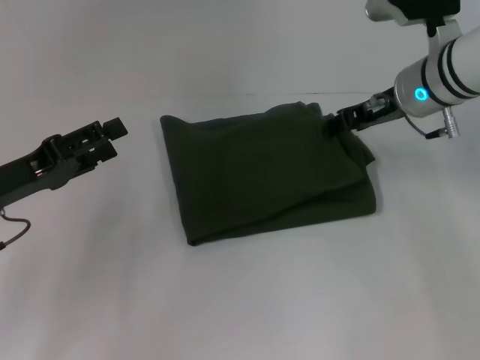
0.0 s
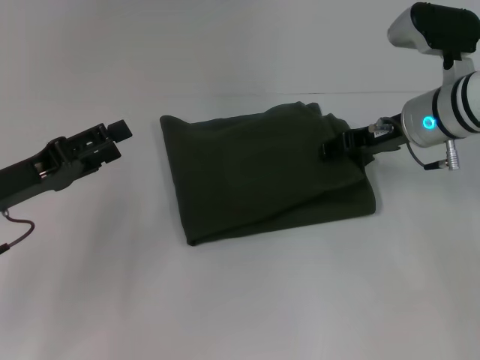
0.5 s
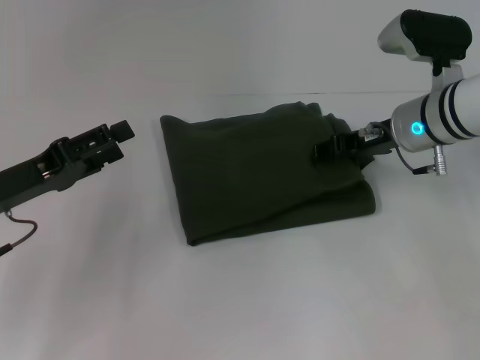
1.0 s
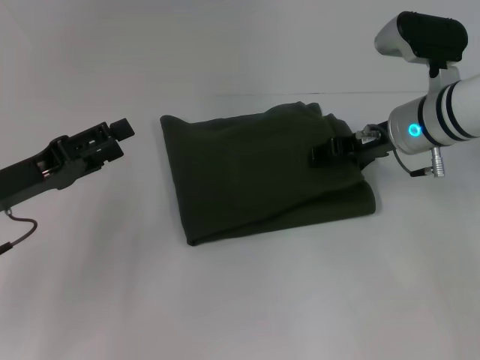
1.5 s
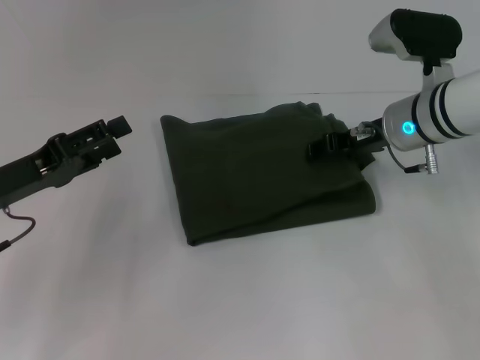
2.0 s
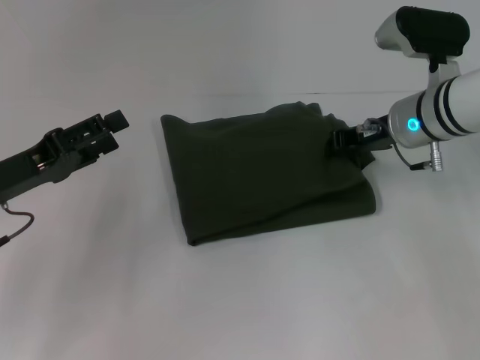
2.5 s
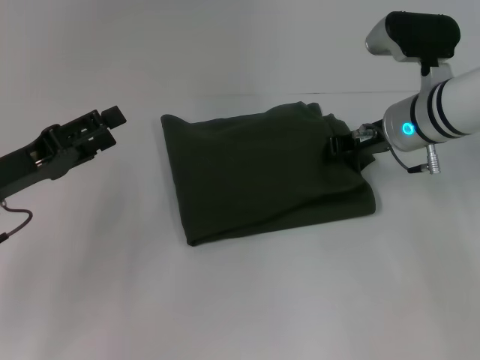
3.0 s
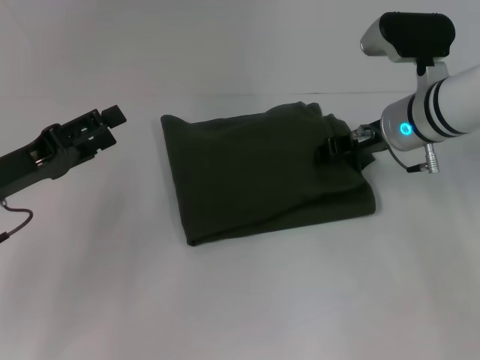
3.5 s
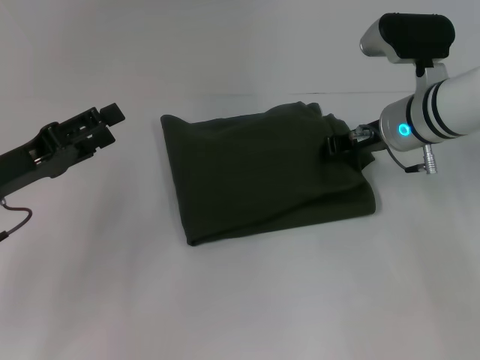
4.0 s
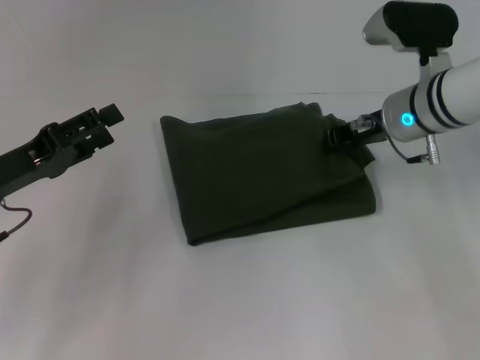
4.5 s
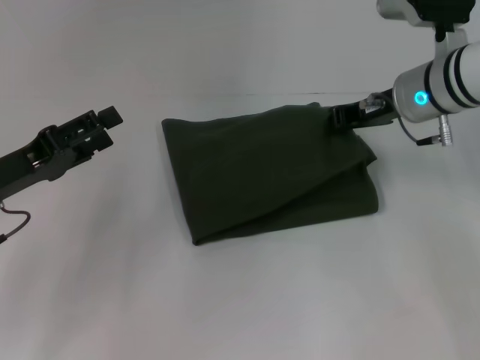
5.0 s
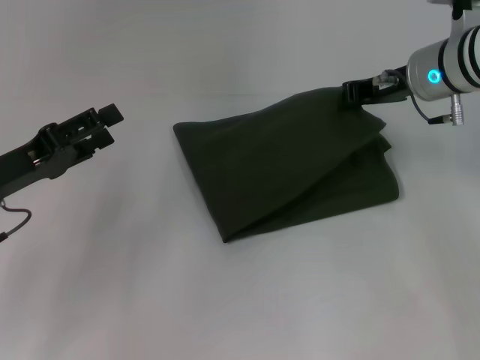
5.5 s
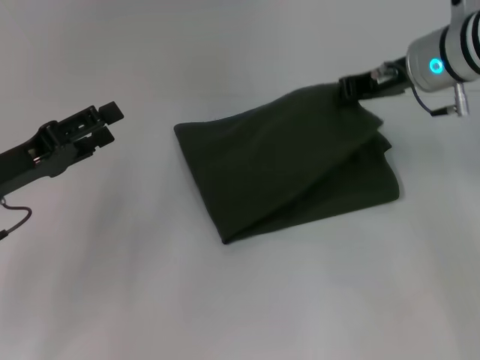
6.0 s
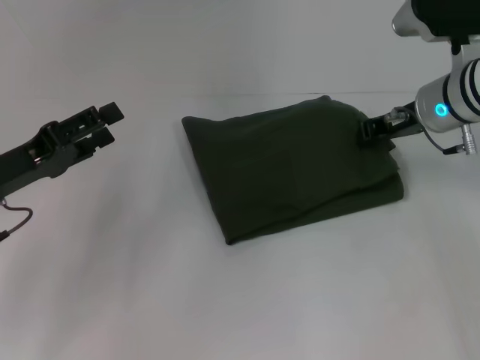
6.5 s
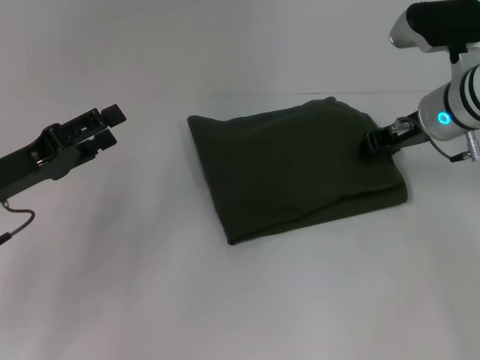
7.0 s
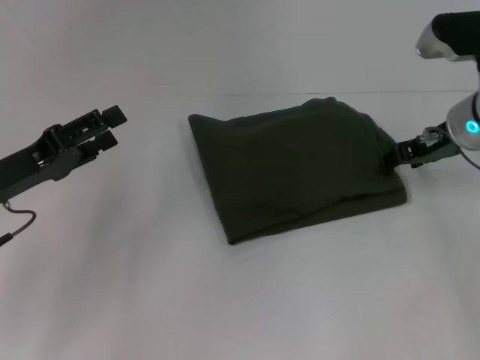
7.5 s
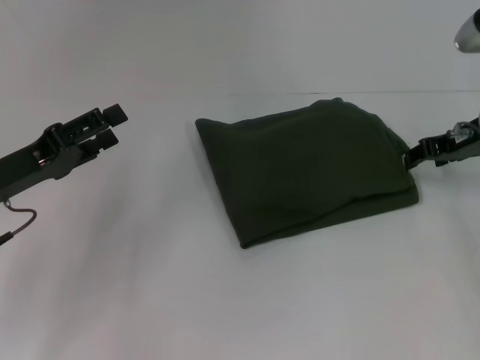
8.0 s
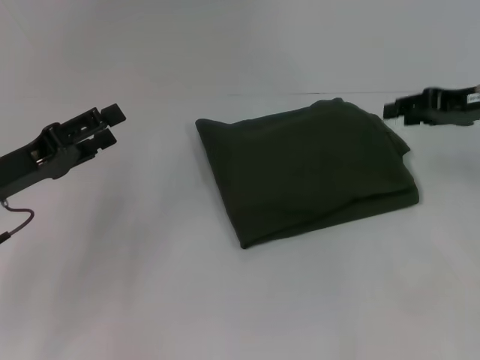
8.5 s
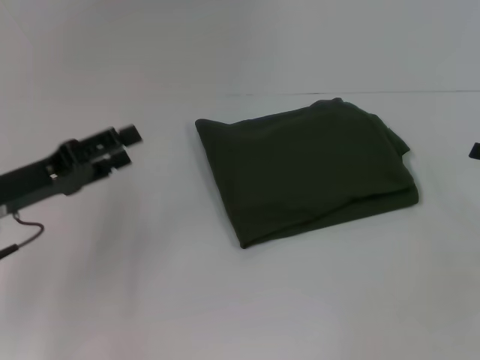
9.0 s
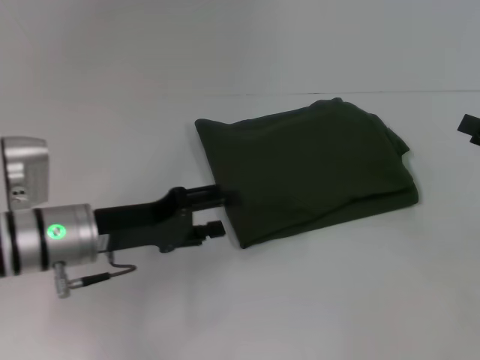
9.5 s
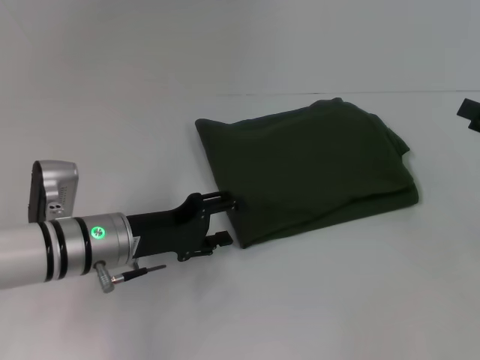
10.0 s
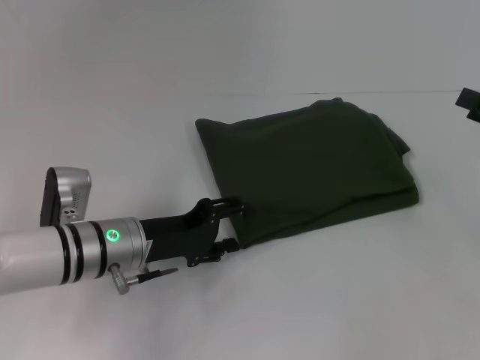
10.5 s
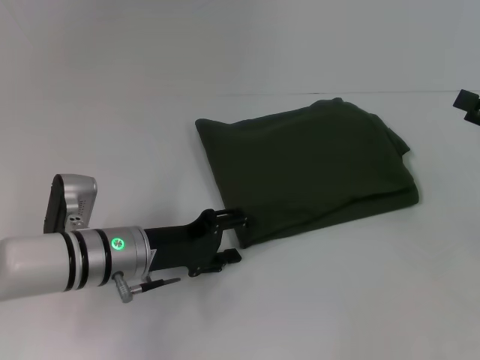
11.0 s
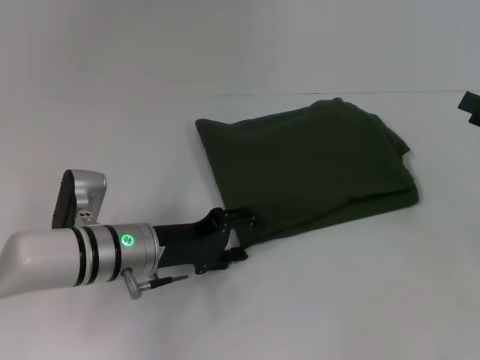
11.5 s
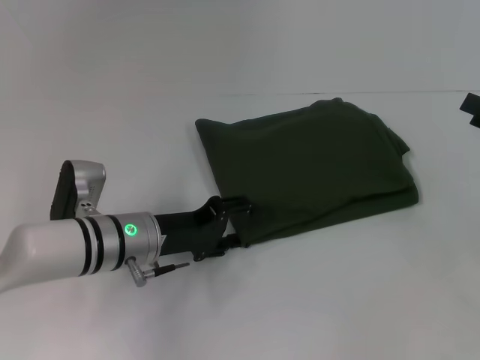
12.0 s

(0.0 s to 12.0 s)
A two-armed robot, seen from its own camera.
0.0 s - 2.0 s: There are only small adjustments of the grippers.
2.0 s - 4.0 s: The right gripper closes its fingers.
4.0 s - 6.0 s: The right gripper is displaced upward by roughly 5 cm.
6.0 s - 8.0 s: The right gripper is displaced to the right by some 10 cm, and opens.
8.0 s - 10.0 s: The right gripper goes some 15 cm backward and to the right, and opens up. The left gripper goes roughly 10 cm to the right and downward.
10.0 s - 12.0 s: There are only small adjustments of the grippers.

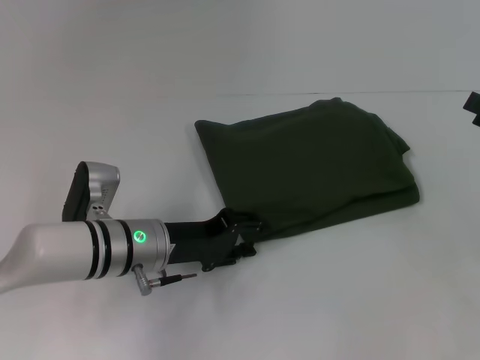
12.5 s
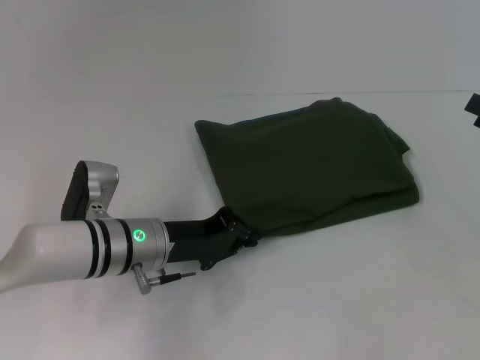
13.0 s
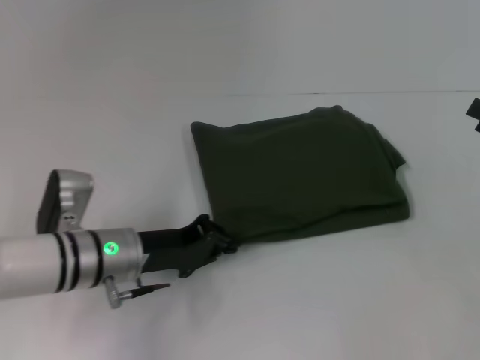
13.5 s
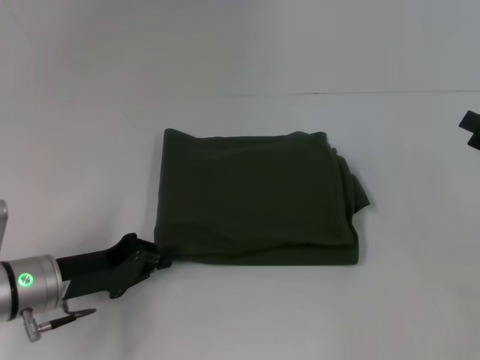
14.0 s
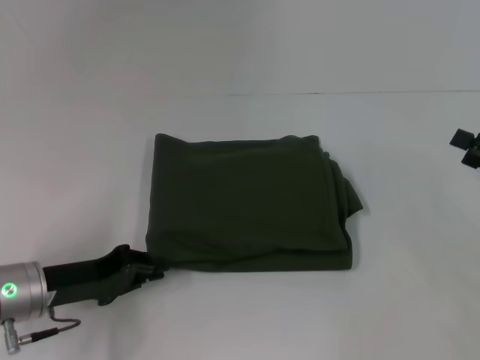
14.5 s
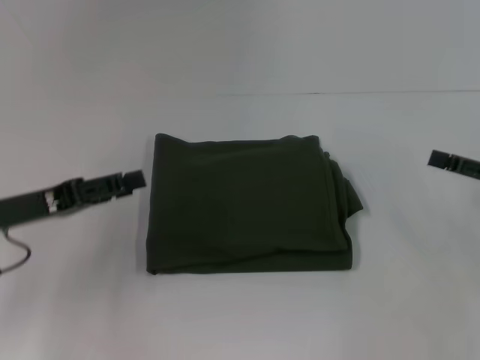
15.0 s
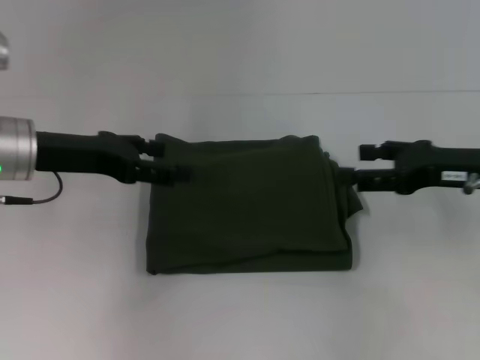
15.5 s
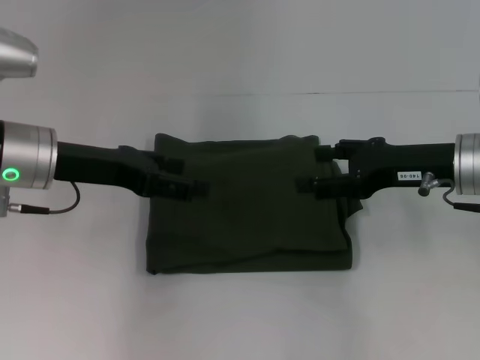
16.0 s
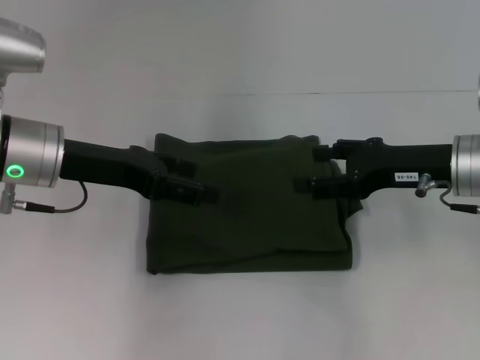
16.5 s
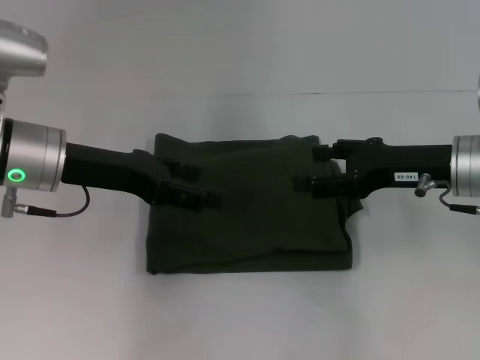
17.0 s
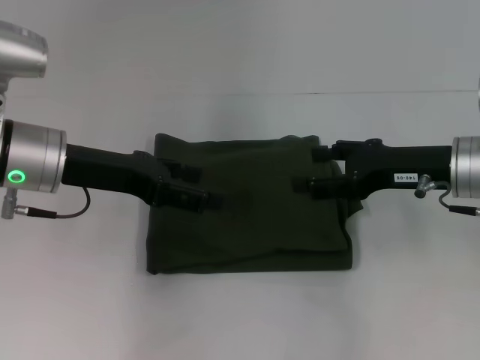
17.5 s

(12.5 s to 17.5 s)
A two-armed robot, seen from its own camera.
12.5 s - 15.0 s: The left gripper shifts approximately 15 cm to the left and upward, and closes, then reopens.
15.0 s - 17.5 s: The left gripper is displaced to the right, forward and upward by roughly 10 cm, and opens, while the right gripper travels to the left by roughly 15 cm.

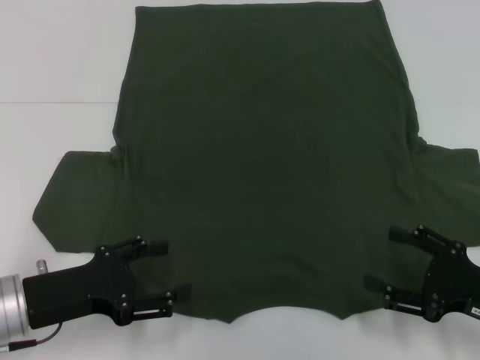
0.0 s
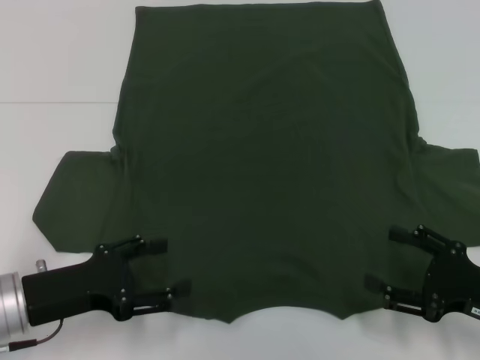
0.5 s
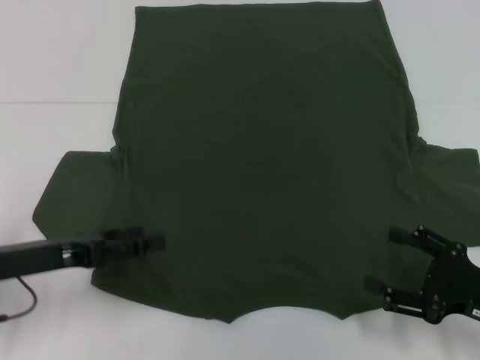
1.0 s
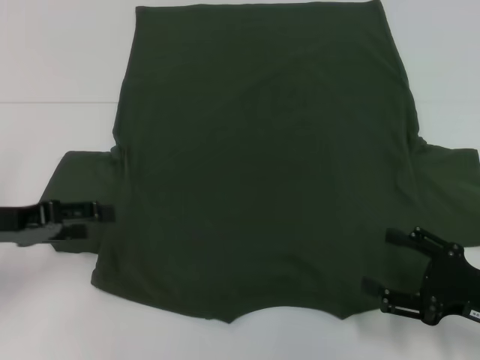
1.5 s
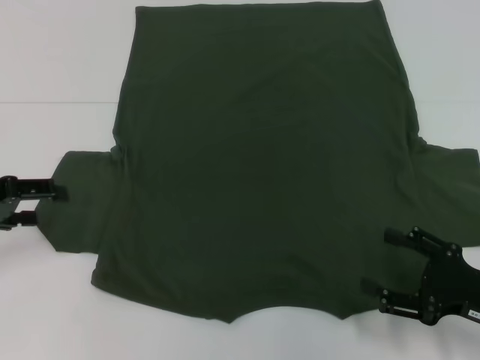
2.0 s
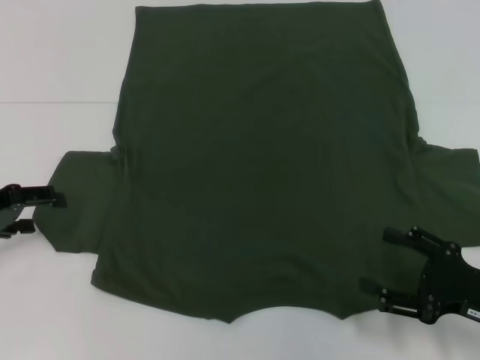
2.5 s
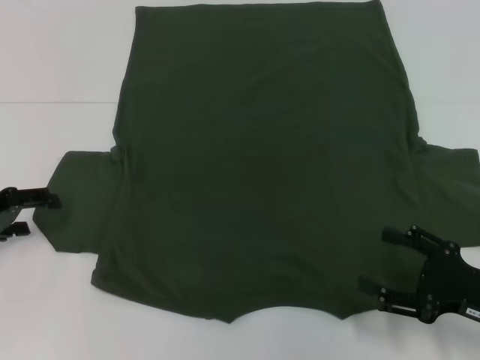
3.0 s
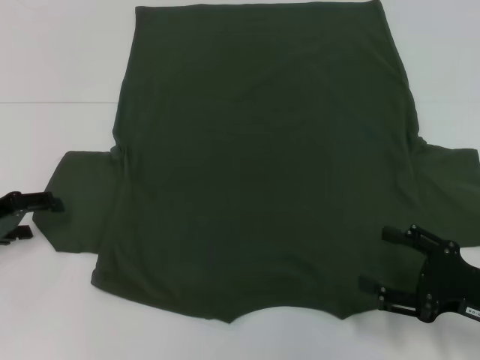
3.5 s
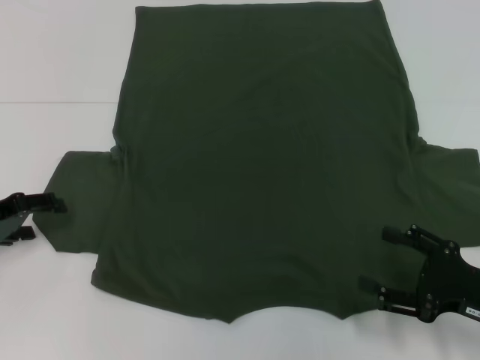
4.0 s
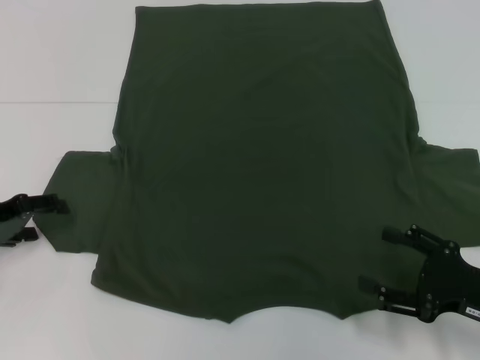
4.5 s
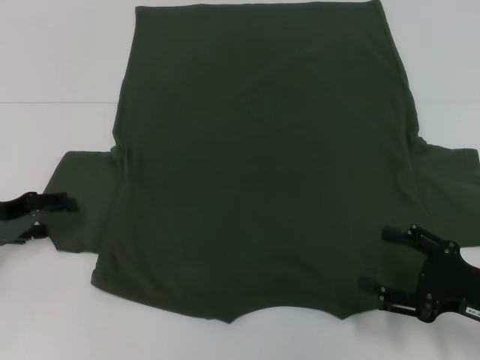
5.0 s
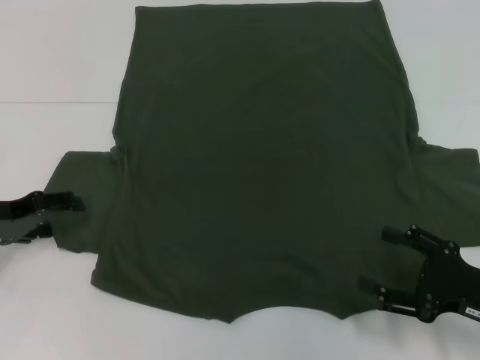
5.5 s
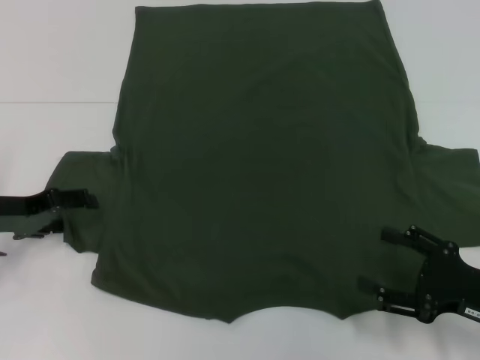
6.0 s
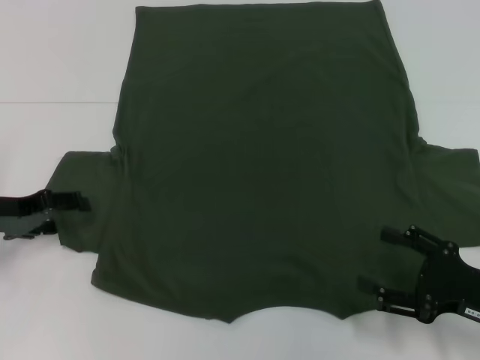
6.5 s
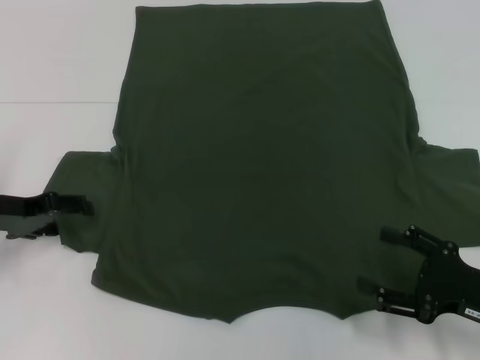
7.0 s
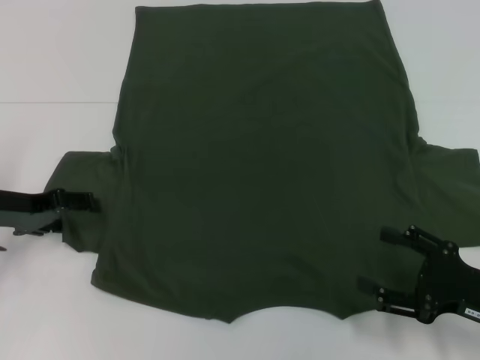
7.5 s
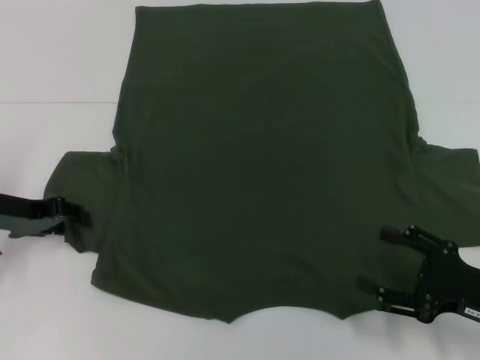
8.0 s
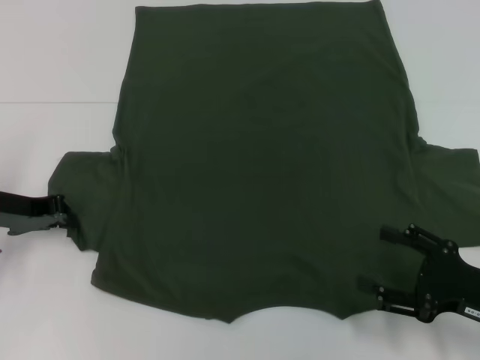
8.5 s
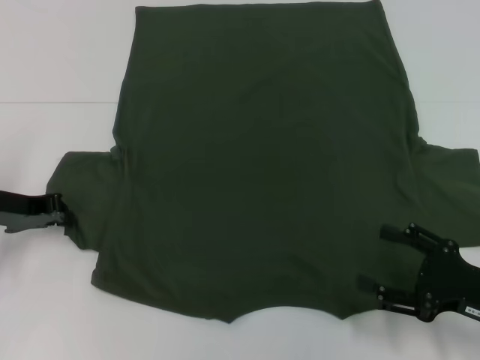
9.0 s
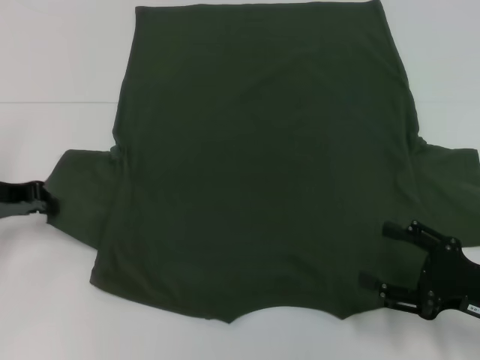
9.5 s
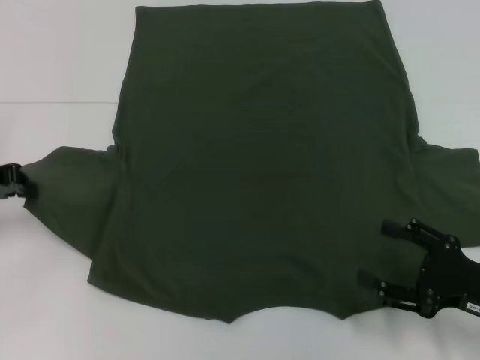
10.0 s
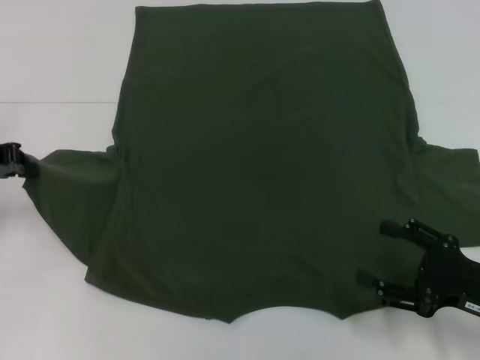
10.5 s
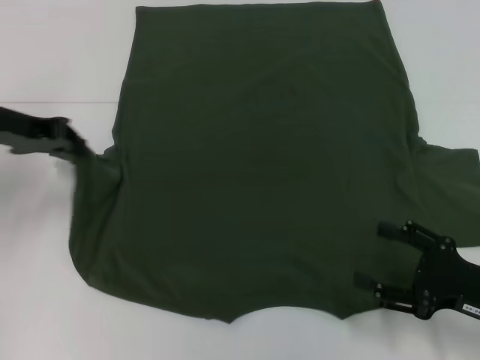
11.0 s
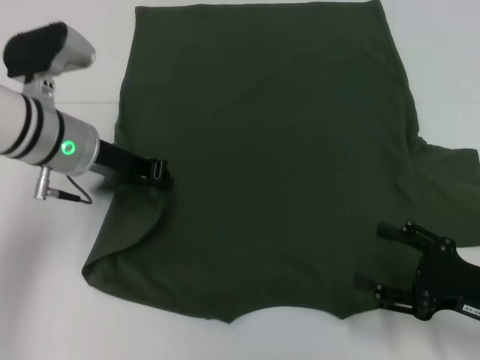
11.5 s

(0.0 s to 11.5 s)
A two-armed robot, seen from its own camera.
0.0 s - 2.0 s: The left gripper is displaced to the left, forward and upward by about 15 cm.
2.0 s - 4.0 s: The left gripper is displaced downward by approximately 5 cm.
4.0 s - 6.0 s: The grippers move only a little.
7.5 s - 9.5 s: The left gripper closes.
9.5 s - 11.5 s: The left gripper is displaced to the right by some 15 cm.
